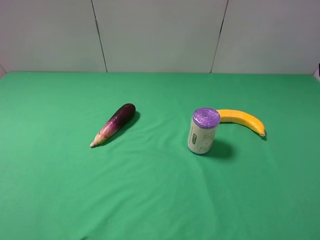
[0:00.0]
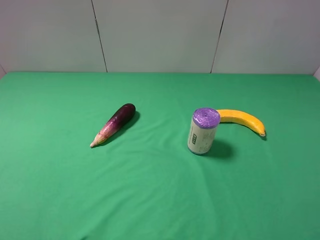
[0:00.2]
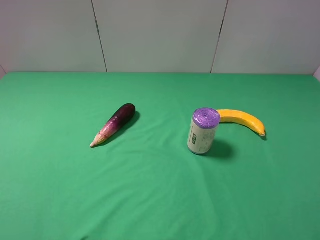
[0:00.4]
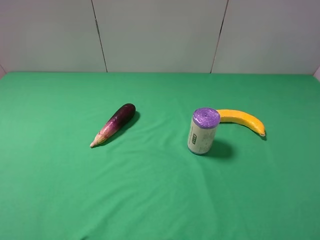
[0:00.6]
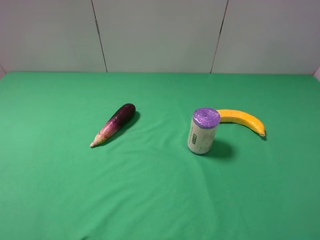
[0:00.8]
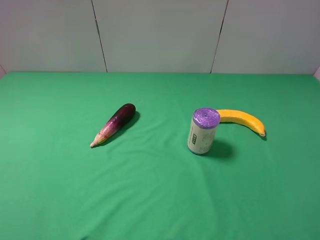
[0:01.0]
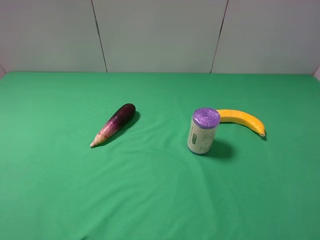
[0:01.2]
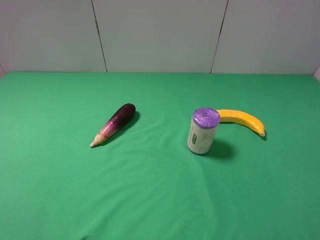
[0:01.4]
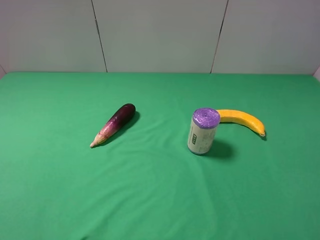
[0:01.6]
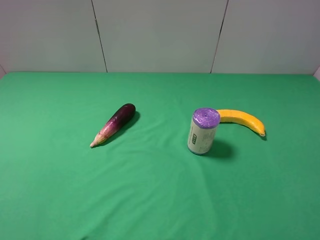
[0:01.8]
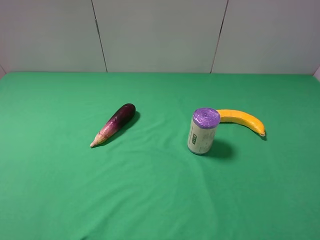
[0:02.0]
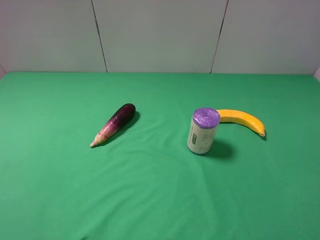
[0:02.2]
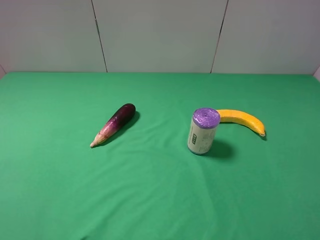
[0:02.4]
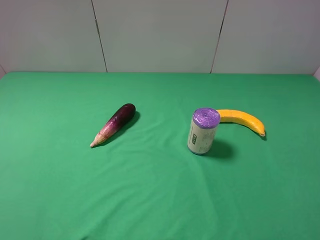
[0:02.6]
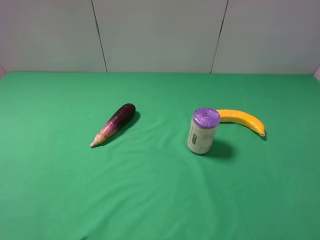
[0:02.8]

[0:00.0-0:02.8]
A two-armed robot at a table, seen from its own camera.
Task of the whole recording: use the left gripper to pick up the item and transfer it from the left gripper to the right gripper.
0:01.4 to 0:02.8: Both grippers stay put.
